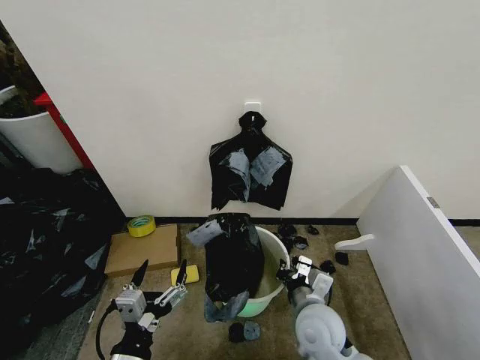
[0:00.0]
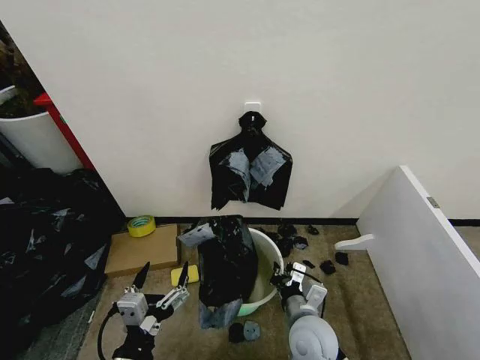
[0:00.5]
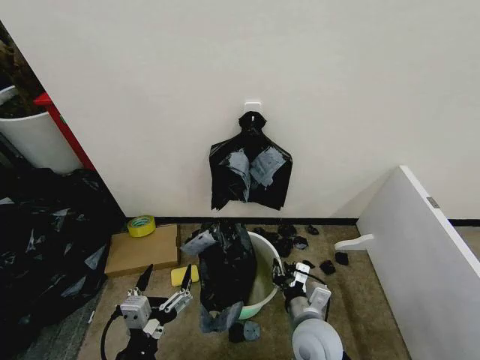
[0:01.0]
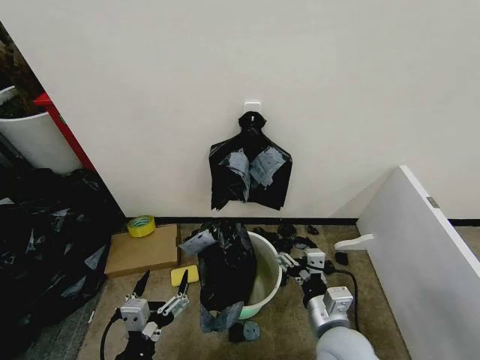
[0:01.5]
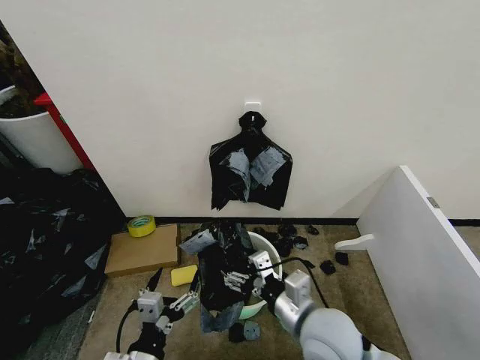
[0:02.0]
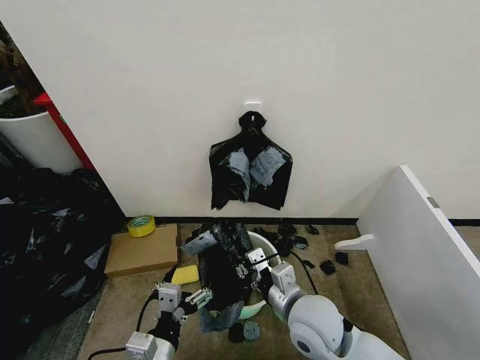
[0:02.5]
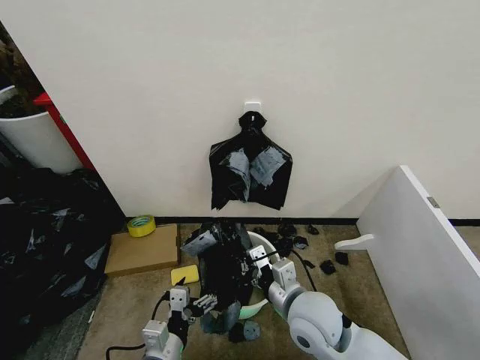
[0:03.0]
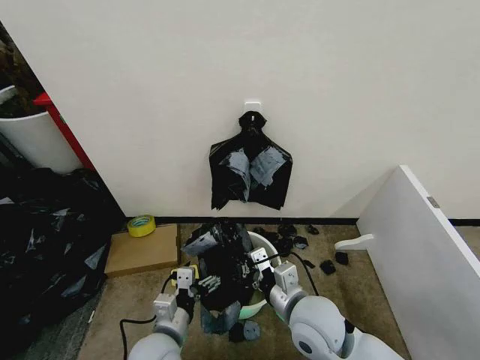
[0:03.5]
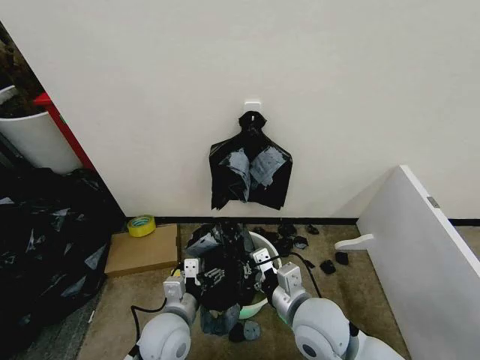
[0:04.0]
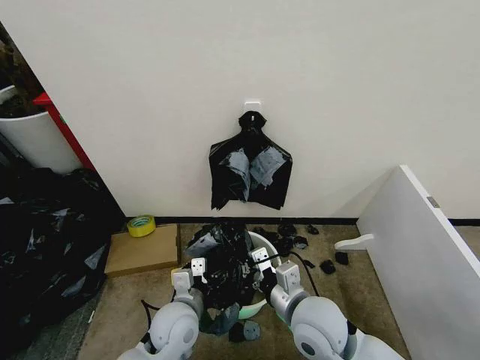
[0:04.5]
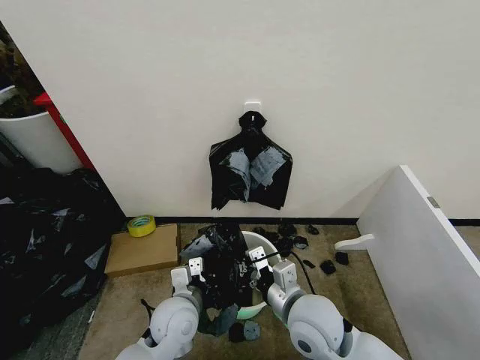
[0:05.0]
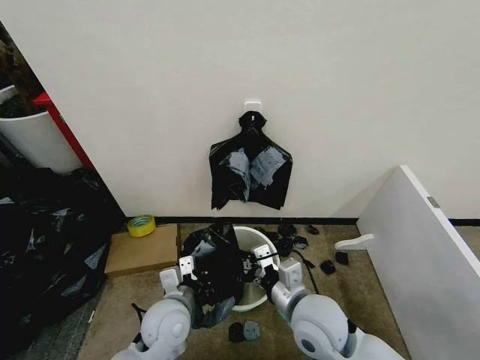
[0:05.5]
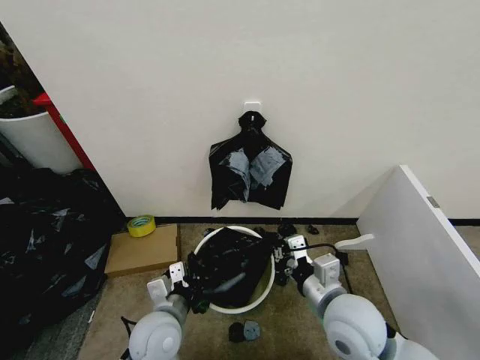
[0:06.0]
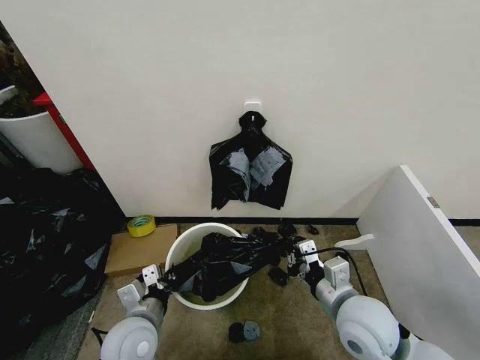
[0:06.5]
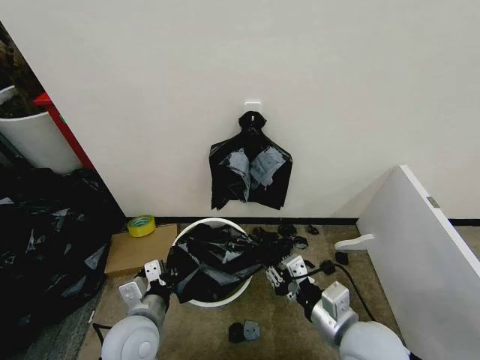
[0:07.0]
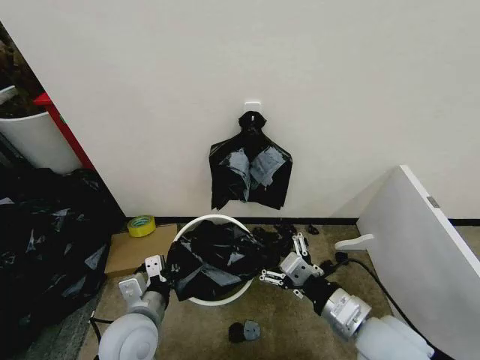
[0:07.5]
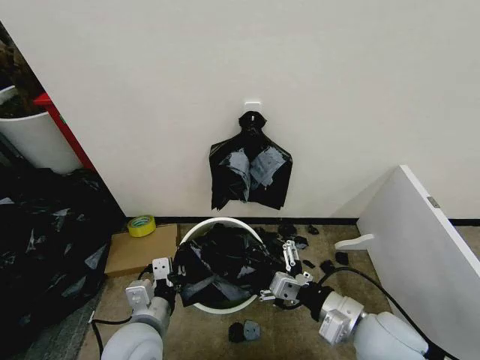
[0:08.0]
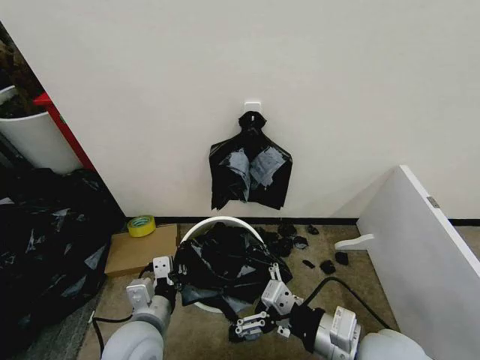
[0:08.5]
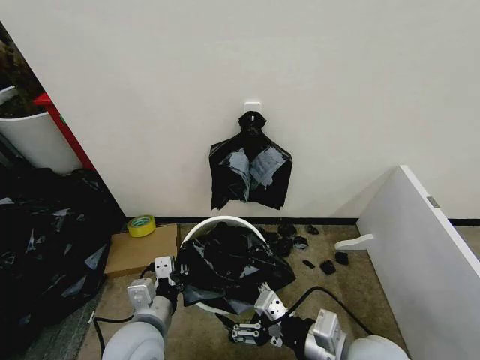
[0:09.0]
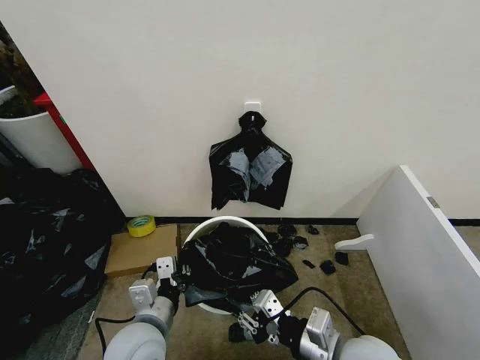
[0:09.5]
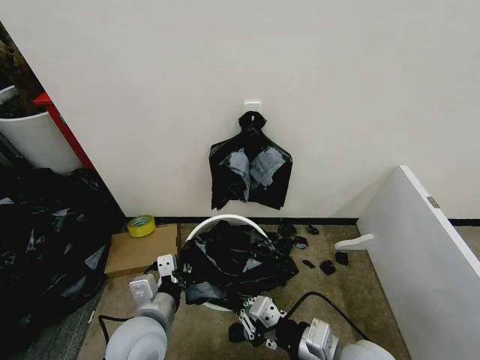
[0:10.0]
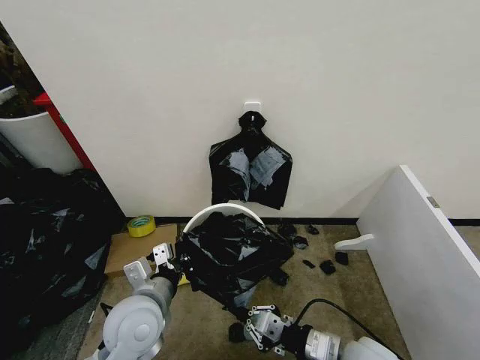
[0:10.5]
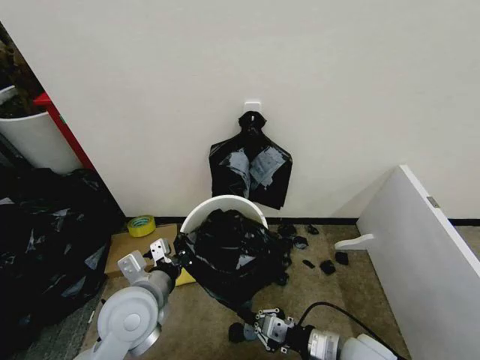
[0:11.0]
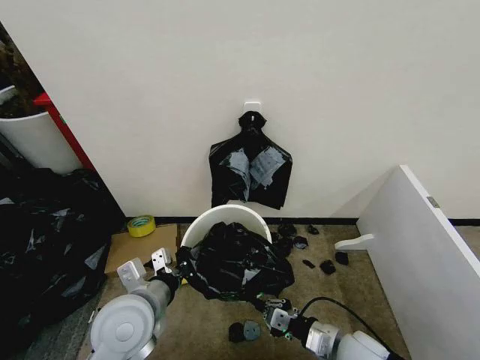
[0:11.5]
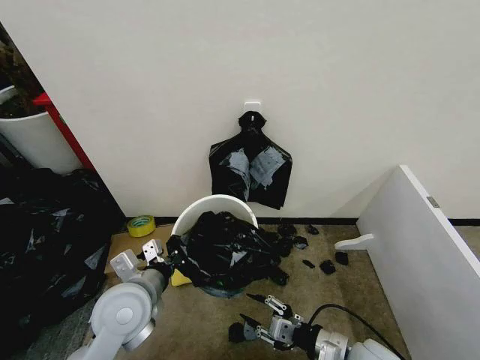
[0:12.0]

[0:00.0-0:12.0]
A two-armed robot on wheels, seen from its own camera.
Task of the whole recording: Place the garbage bag over the trash bin.
0:00.0 to 0:02.0: The right gripper is displaced upward by about 10 cm, and opens its fingers.
0:02.0 to 0:04.0: The left gripper shifts roughly 15 cm forward. The right gripper closes.
0:04.0 to 0:06.0: The right gripper travels to the right by roughly 5 cm. The left gripper closes.
0:06.0 to 0:08.0: The left gripper ends up roughly 5 cm from where it was. Meanwhile the right gripper moves roughly 5 cm, and opens its fingers.
0:08.0 to 0:10.0: The right gripper changes place by about 5 cm, and closes its fingers.
0:10.0 to 0:12.0: The right gripper travels downward and to the right by approximately 10 cm, while the left gripper changes place by roughly 5 cm.

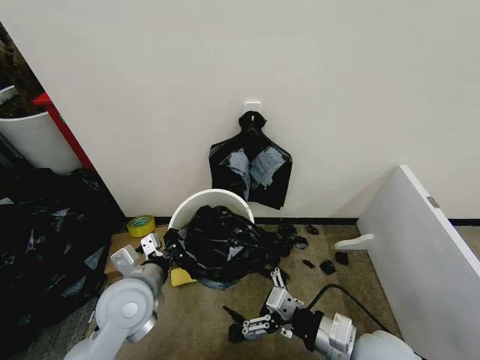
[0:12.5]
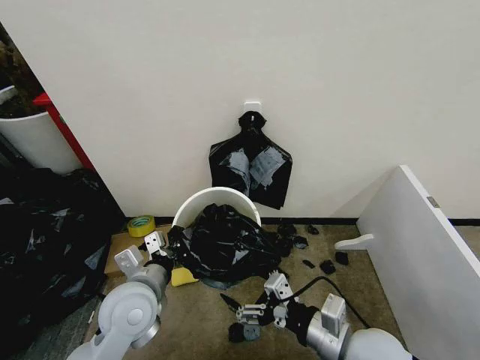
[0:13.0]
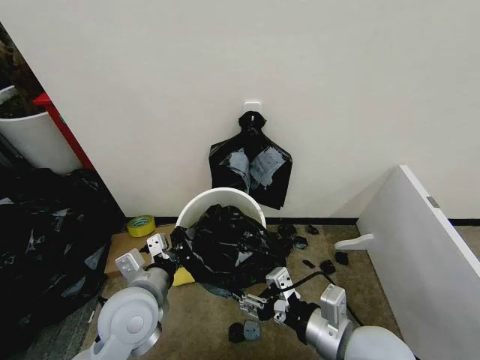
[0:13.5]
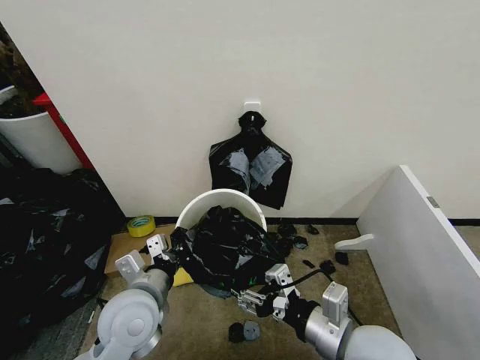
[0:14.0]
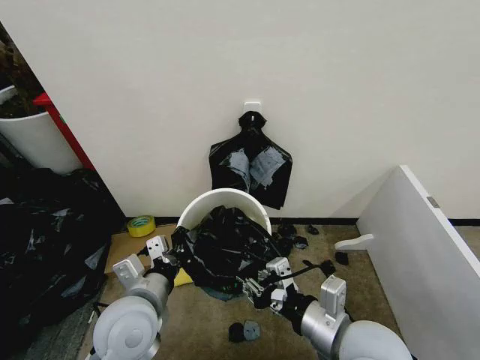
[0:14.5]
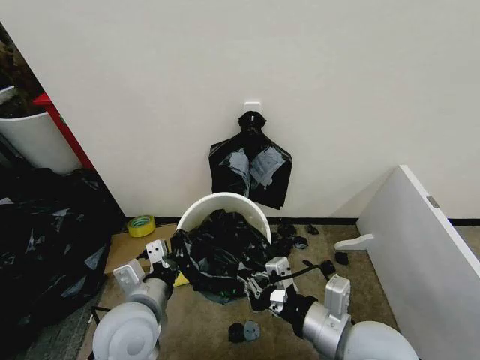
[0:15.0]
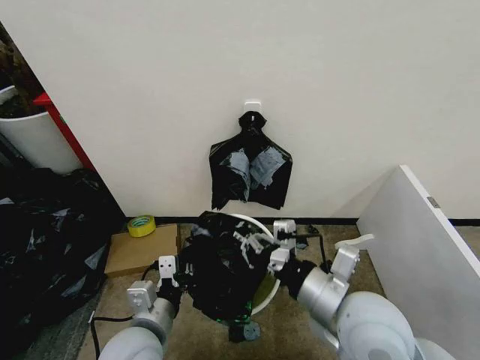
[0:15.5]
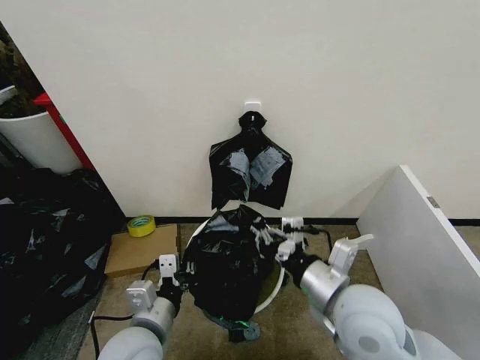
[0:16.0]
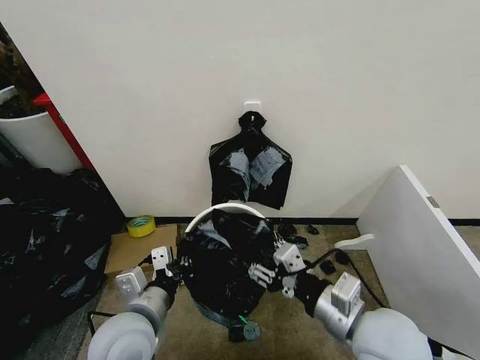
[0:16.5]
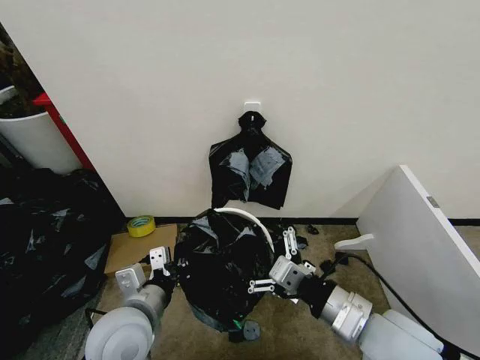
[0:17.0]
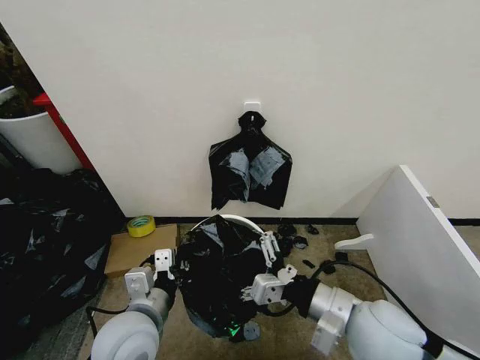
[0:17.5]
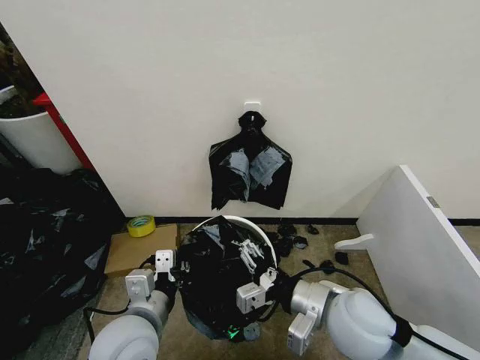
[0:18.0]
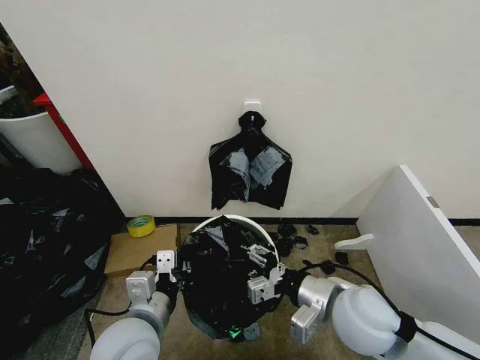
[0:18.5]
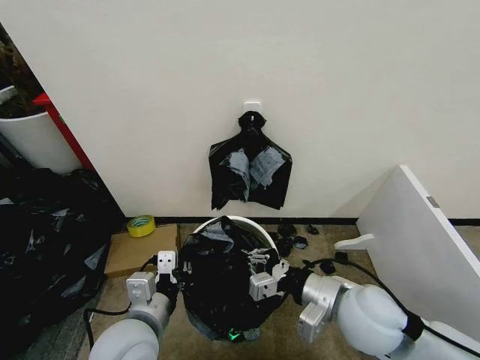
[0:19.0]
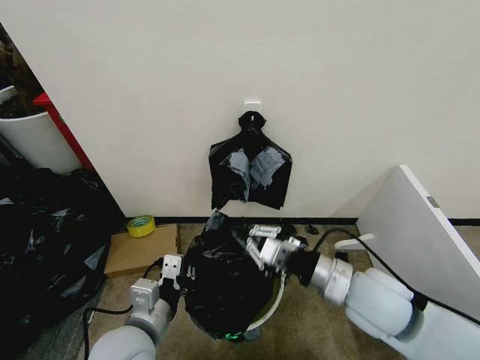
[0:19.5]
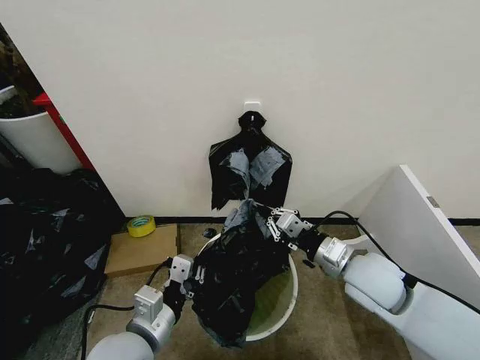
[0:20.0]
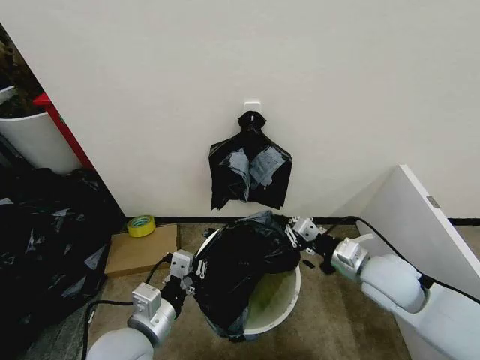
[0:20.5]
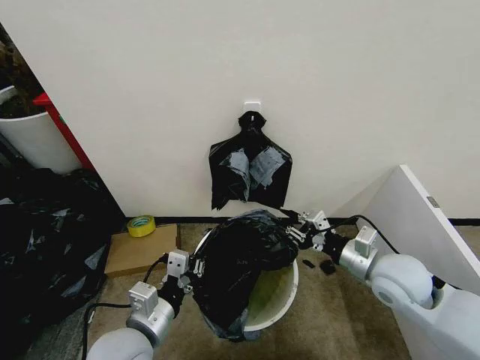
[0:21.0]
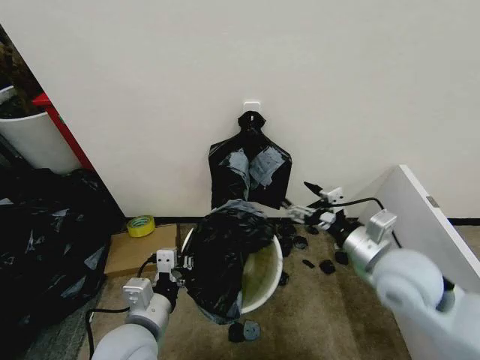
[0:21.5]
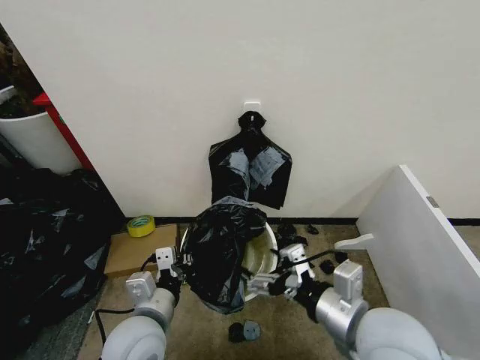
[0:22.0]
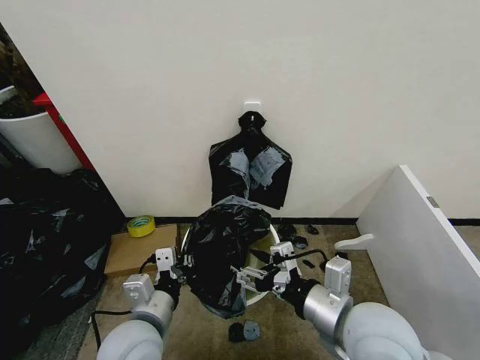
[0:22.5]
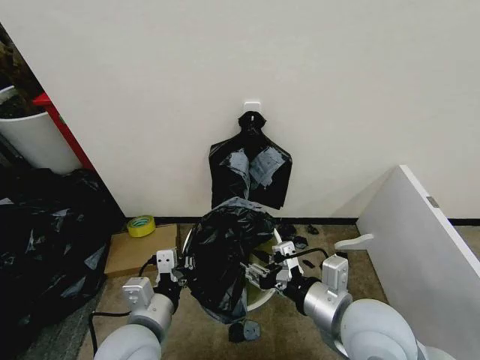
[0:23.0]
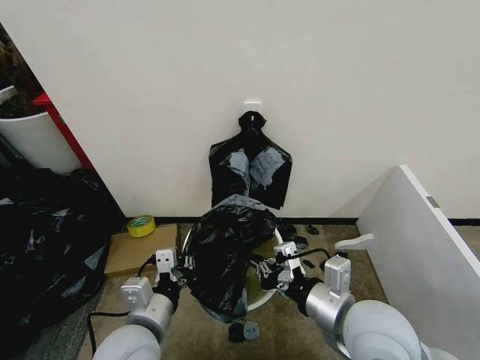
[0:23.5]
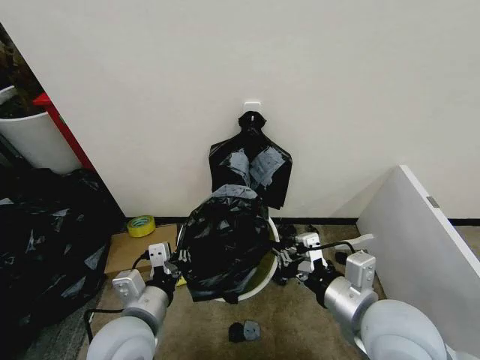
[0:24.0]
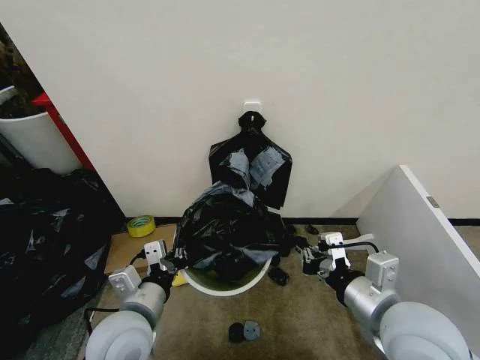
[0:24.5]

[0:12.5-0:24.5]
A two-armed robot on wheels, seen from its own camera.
Task of the whole recording: Place the garbage bag over the trash bin.
0:12.5 to 0:14.5: The right gripper shifts approximately 5 cm upward, and closes its fingers.
0:16.5 to 0:18.5: The right gripper changes place by roughly 5 cm, and opens, then closes once more.
0:18.5 to 0:20.5: The right gripper goes roughly 10 cm to the right and forward, and closes up.
0:20.5 to 0:22.5: The right gripper travels backward, to the left and upward by about 15 cm, and opens its fingers.
0:22.5 to 0:24.5: The right gripper closes its fingers.

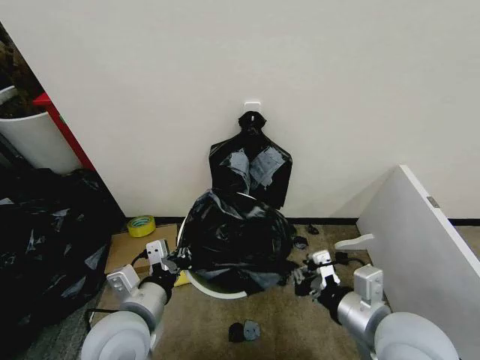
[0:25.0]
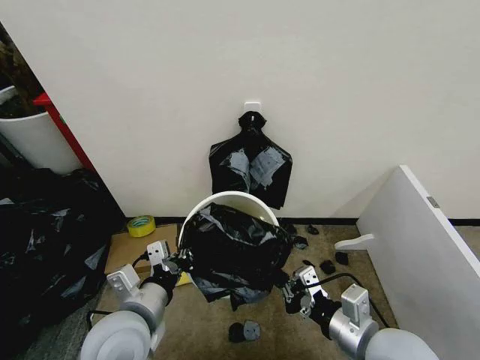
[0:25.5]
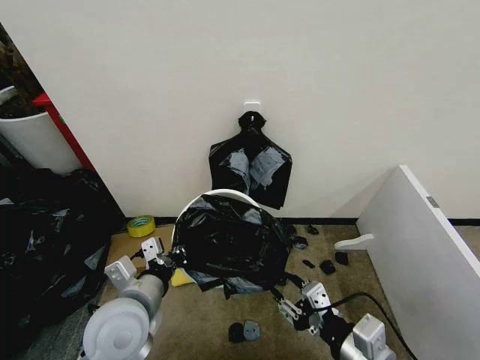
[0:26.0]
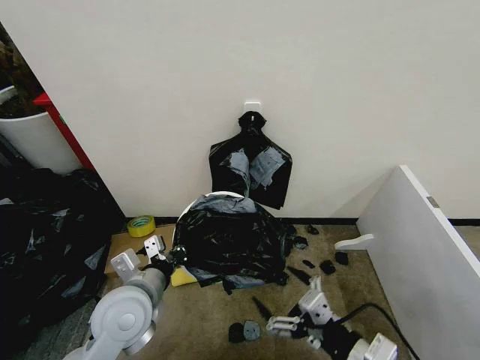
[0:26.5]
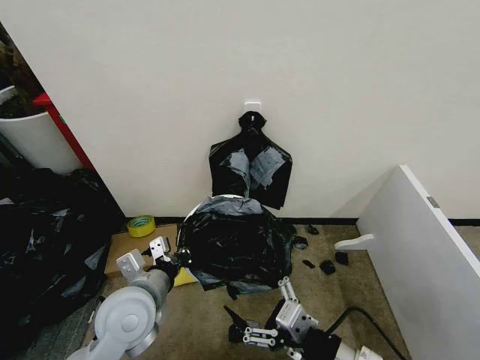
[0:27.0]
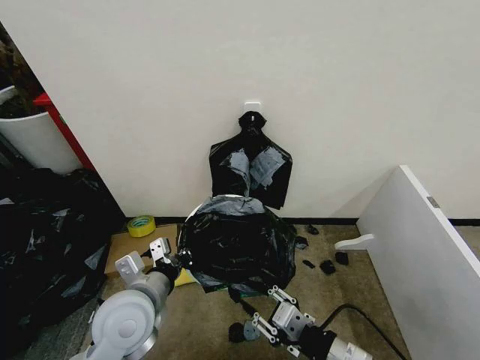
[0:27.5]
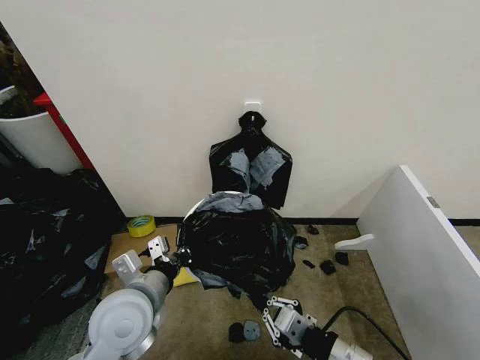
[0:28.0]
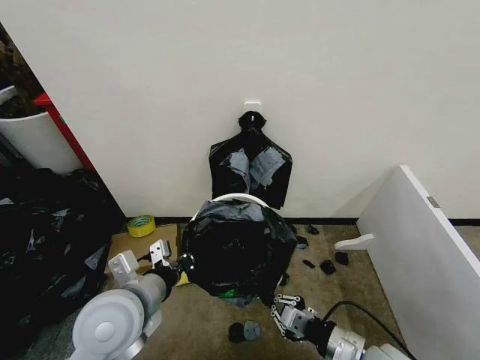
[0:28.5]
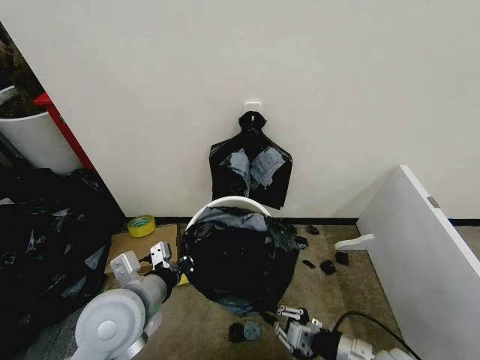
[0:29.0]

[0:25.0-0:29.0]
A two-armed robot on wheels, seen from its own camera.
Task of the whole recording: Place the garbage bag over the trash bin.
0:25.0 to 0:27.0: The right gripper travels backward by roughly 5 cm, and opens up.
0:27.0 to 0:29.0: The right gripper goes about 15 cm downward, to the right and forward, and closes.
